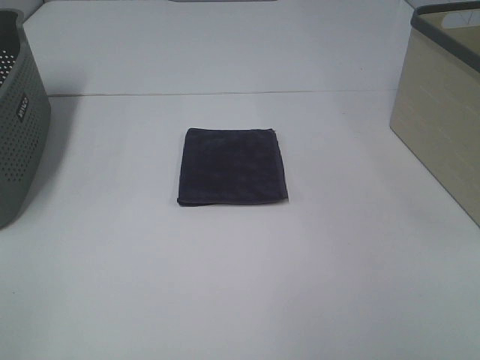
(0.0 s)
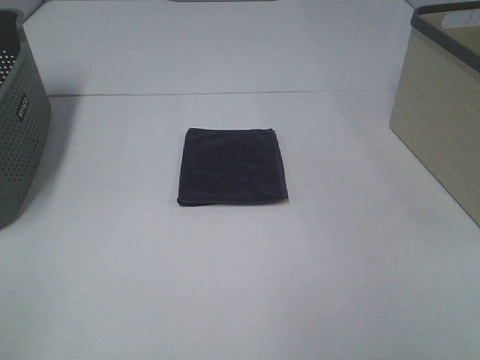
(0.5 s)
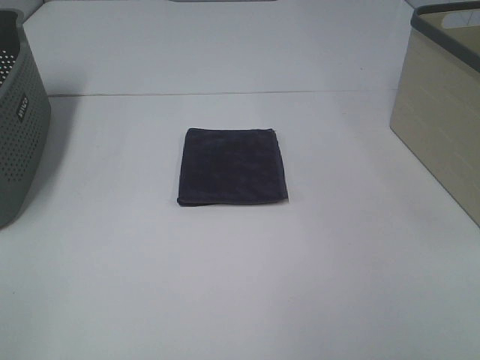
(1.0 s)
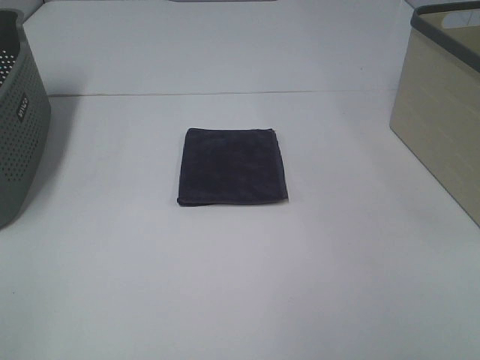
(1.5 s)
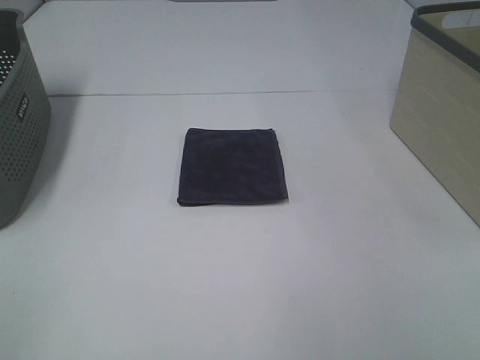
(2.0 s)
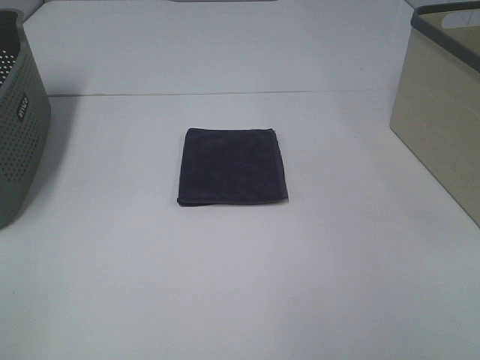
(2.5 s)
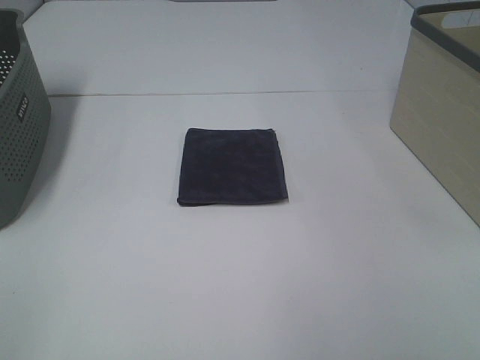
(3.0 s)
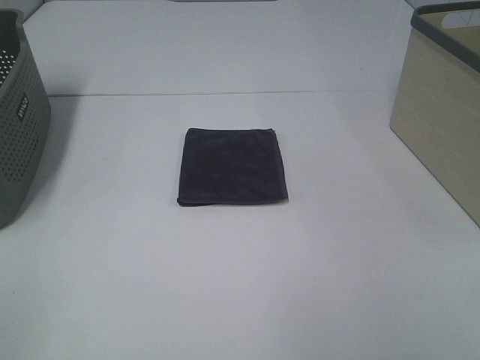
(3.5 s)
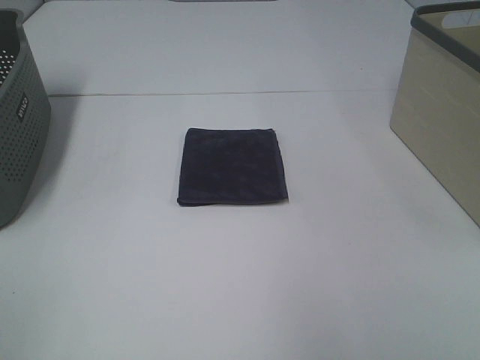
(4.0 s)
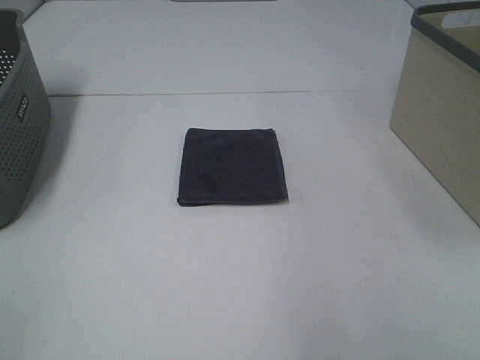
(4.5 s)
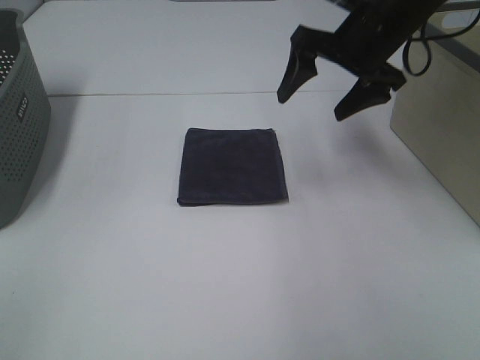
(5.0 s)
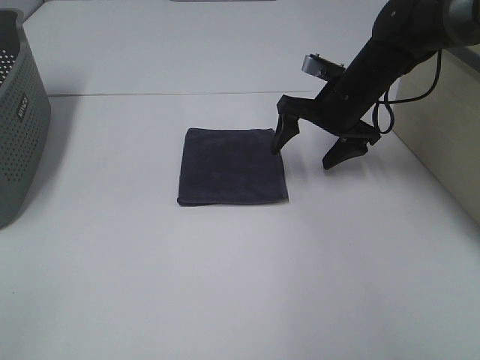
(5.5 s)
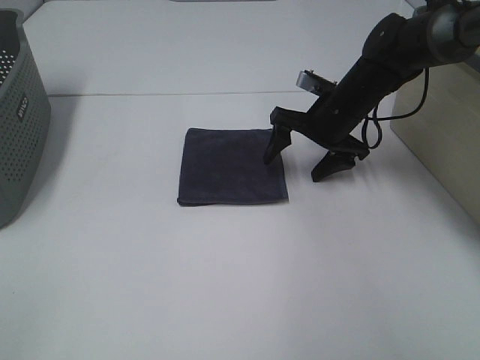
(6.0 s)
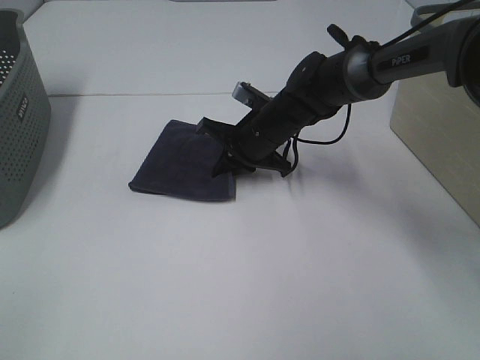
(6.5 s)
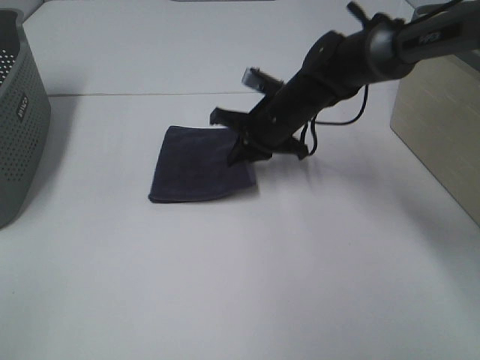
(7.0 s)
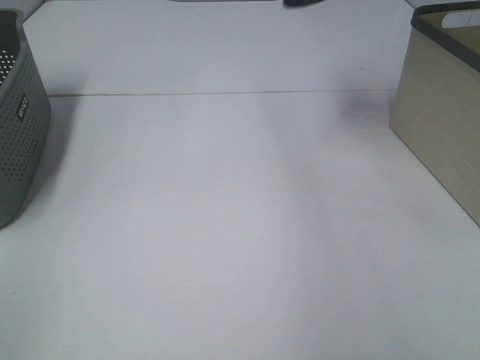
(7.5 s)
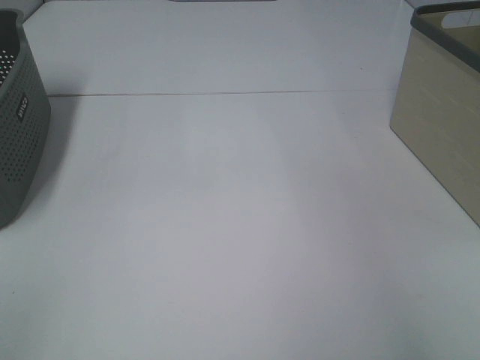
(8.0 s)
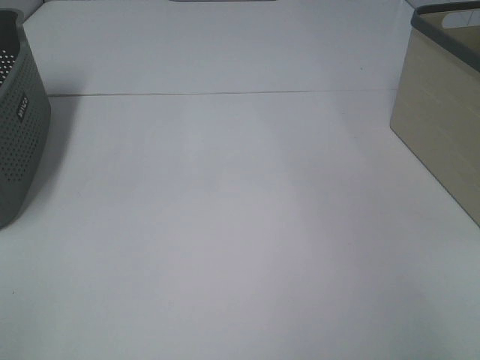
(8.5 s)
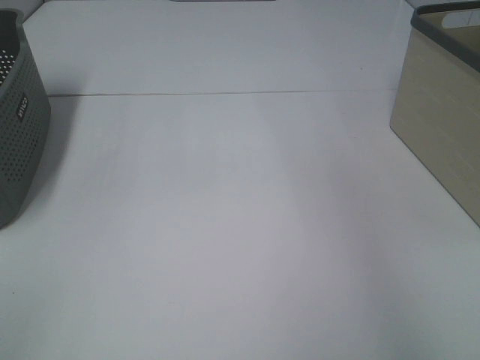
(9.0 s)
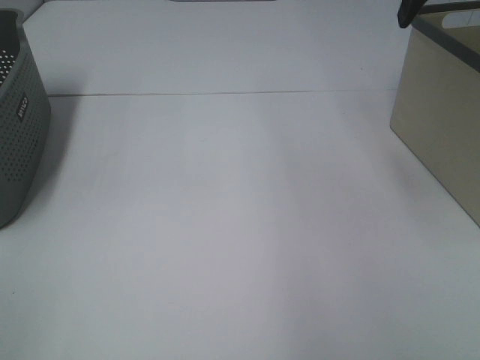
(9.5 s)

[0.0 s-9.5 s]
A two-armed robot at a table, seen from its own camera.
Step, 0.0 to 6.5 s: Right hand: grab the folded grey towel.
Step, 7.0 to 8.5 s: Right hand: place the grey towel in right basket.
0.0 to 2.0 s: Both grippers stay about where they are.
4.0 to 5.5 s: The right gripper goes roughly 50 cm downward and forward.
5.5 to 7.5 s: The right gripper is displaced upward by some 25 cm, and closes its fingers.
7.5 to 9.5 s: The right gripper moves backward, approximately 5 cm, goes to the right and returns, about 20 cm each way, and opens its fingers.

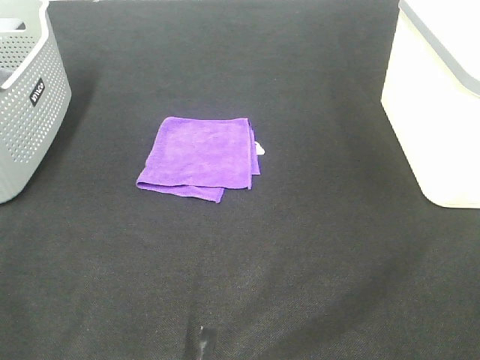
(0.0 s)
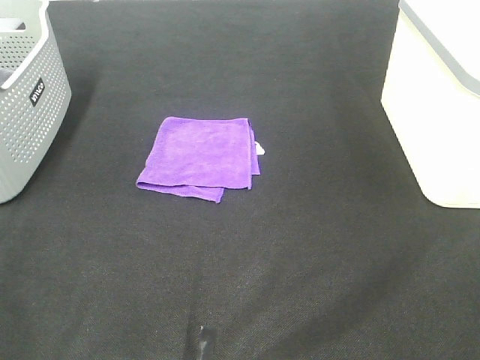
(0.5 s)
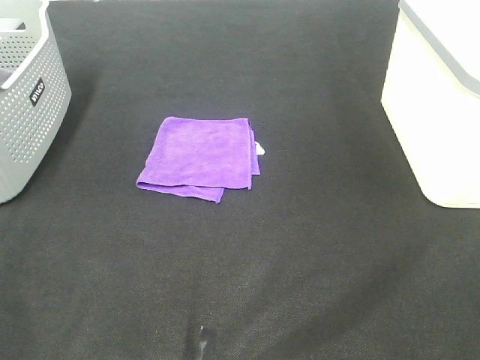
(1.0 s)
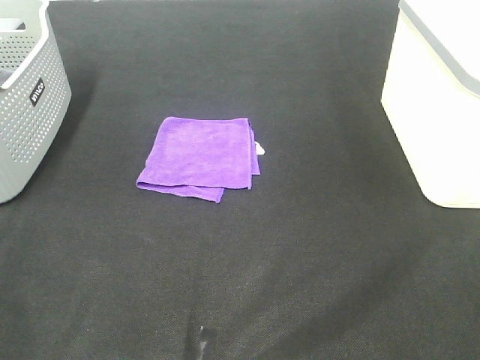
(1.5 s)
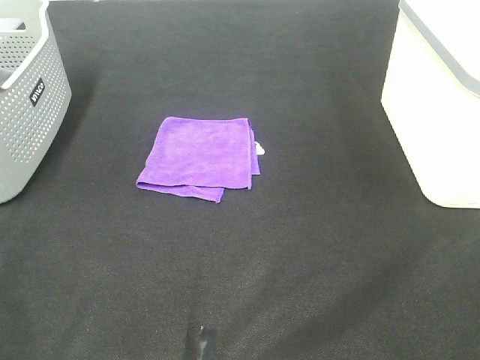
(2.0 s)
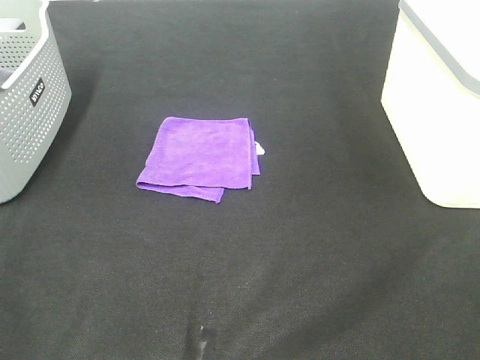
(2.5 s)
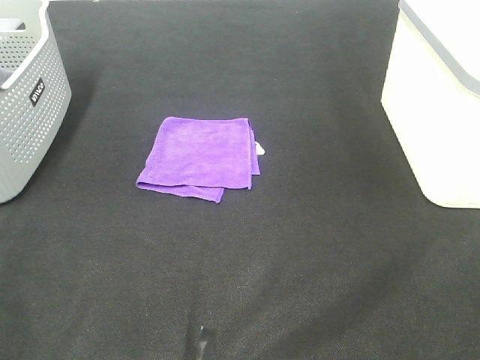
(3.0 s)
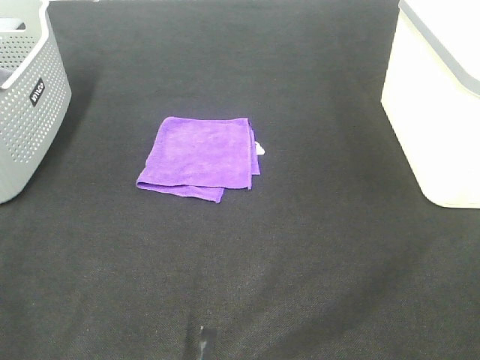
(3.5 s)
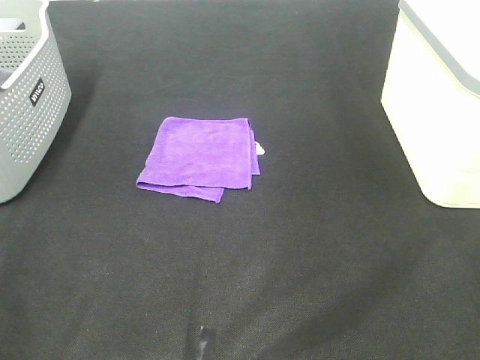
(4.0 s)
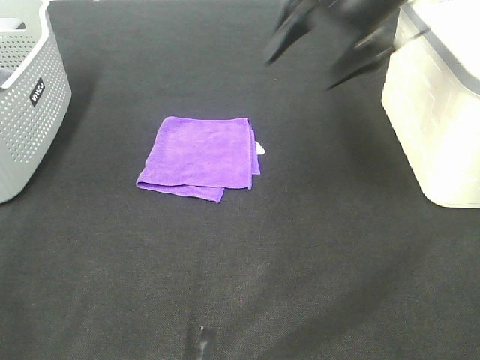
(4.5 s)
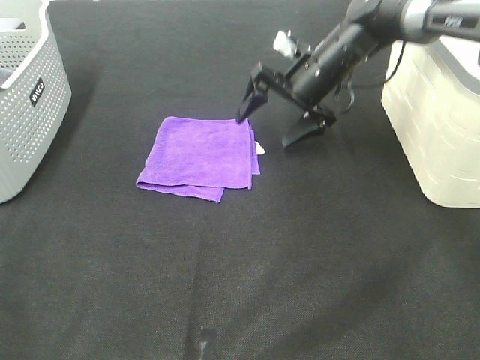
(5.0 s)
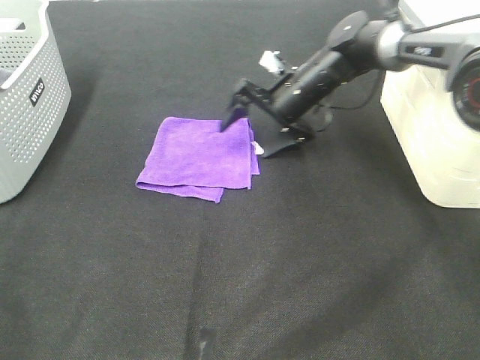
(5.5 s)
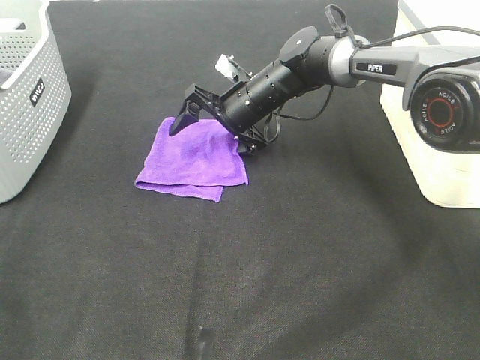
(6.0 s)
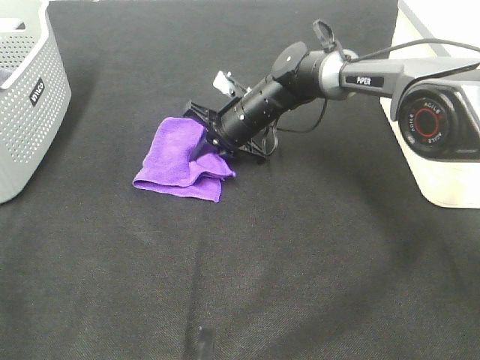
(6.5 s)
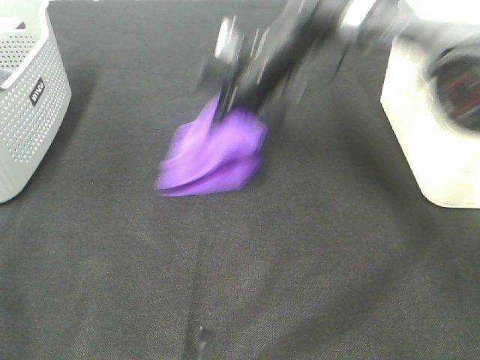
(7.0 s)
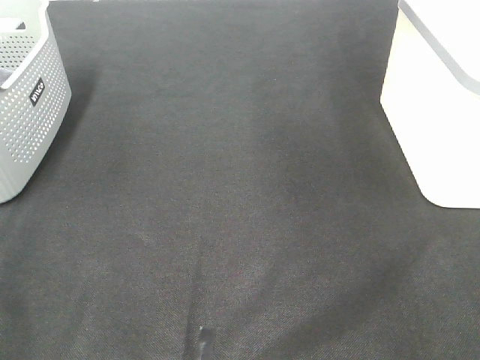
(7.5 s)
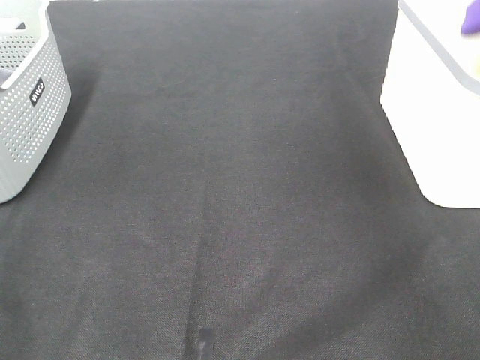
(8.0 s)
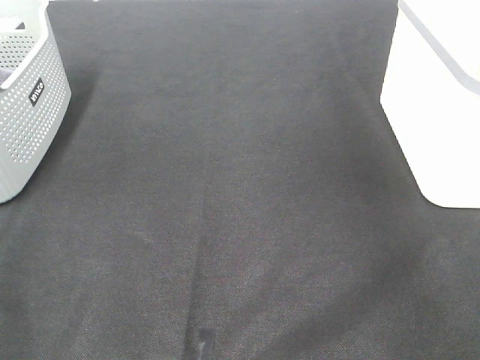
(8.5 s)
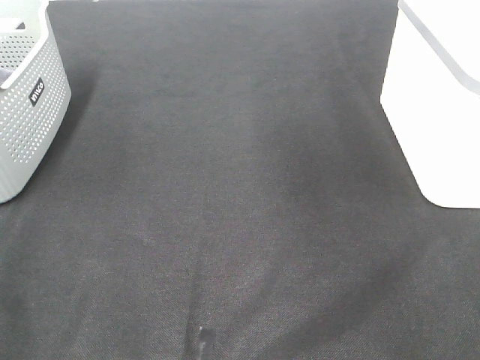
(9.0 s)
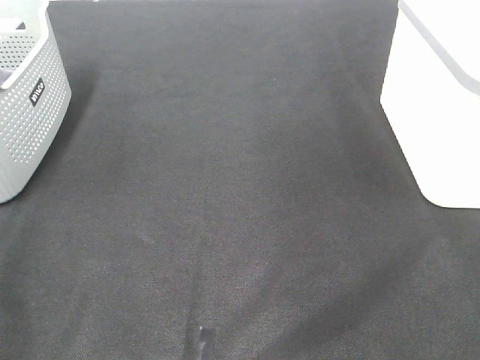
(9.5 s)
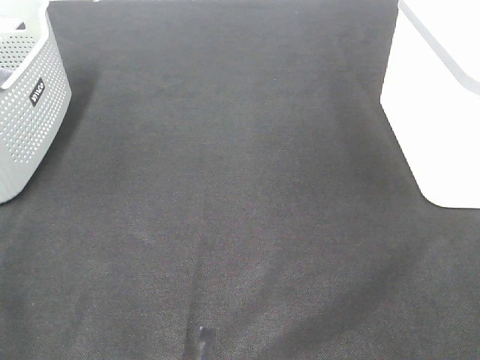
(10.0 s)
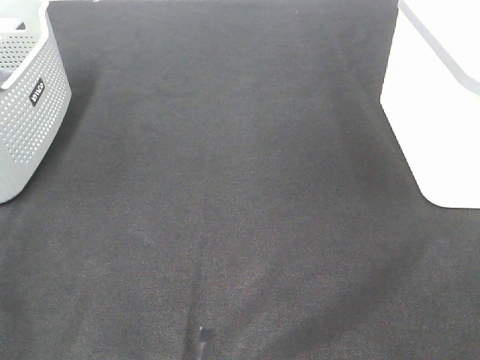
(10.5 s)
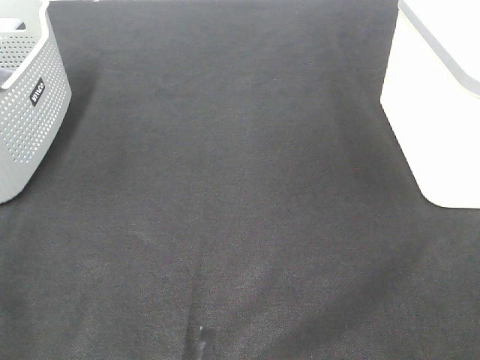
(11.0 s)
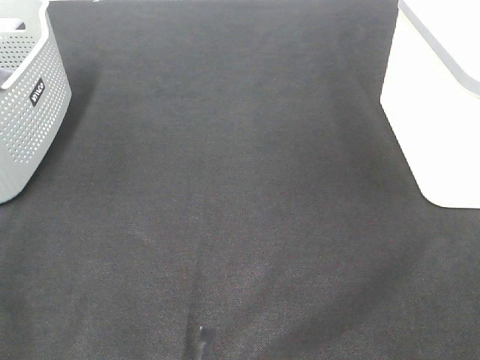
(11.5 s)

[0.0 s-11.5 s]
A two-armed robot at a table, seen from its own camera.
Step, 0.0 to 6.5 s: Right hand: grab the folded purple towel.
Step, 7.0 to 8.0 s: Right hand: place the purple towel in right basket.
4.0 to 6.0 s: The right gripper moves forward, downward and to the left, some 50 cm.
6.0 to 7.5 s: The right gripper is displaced upward and to the right by some 40 cm, and closes its fingers.

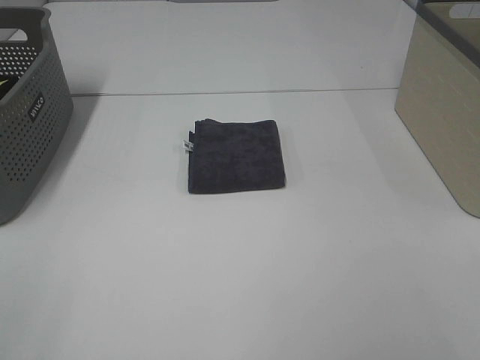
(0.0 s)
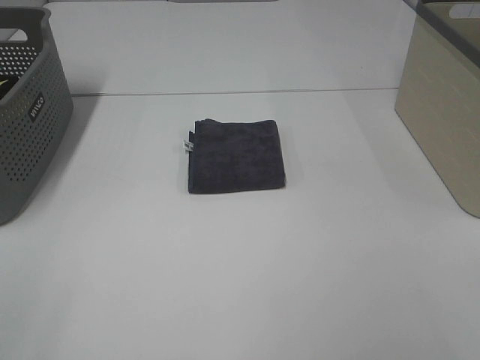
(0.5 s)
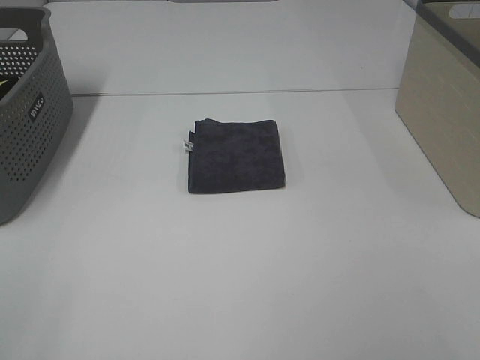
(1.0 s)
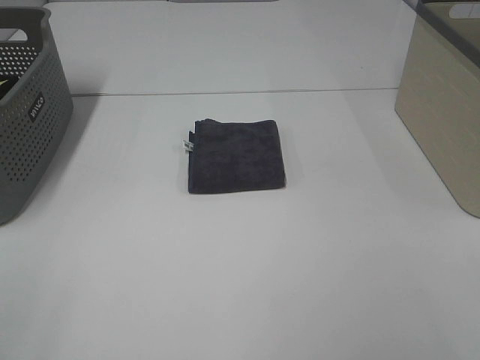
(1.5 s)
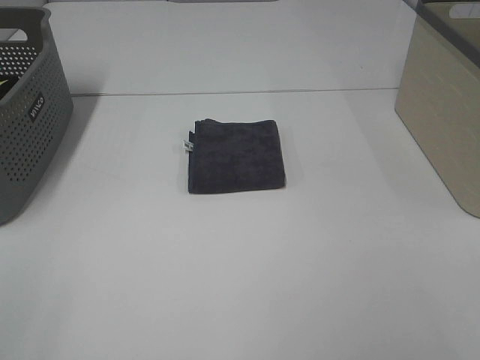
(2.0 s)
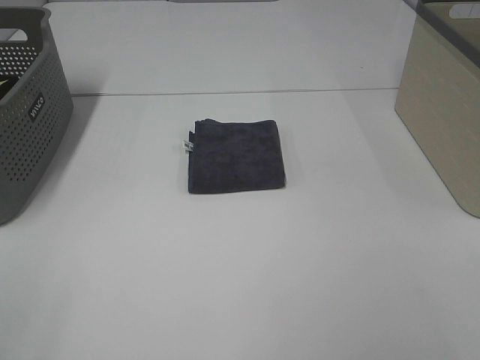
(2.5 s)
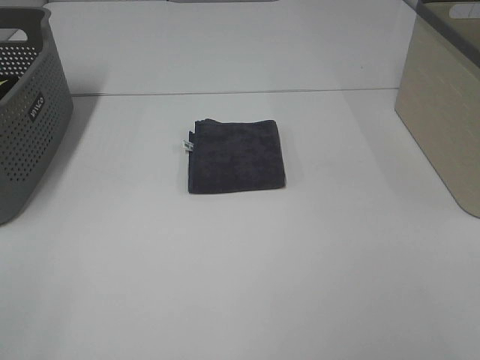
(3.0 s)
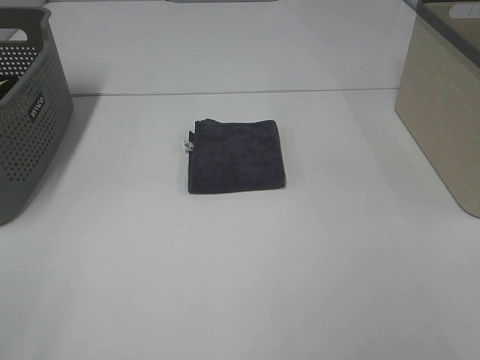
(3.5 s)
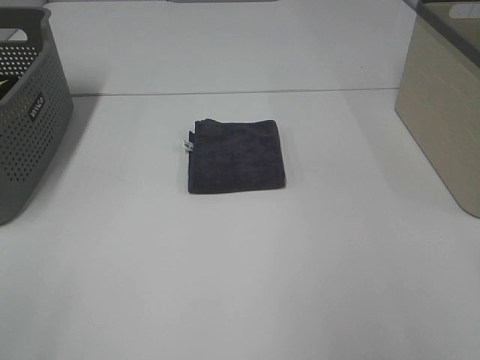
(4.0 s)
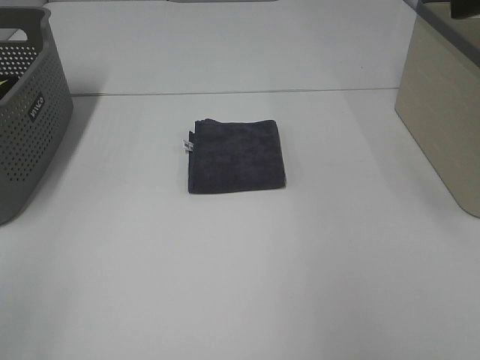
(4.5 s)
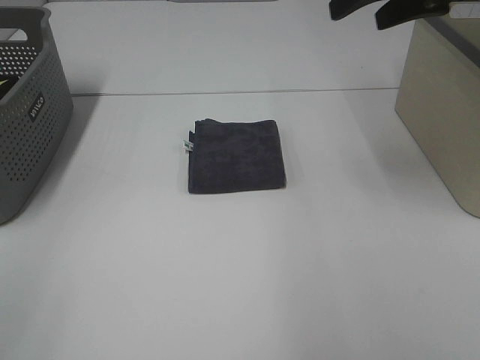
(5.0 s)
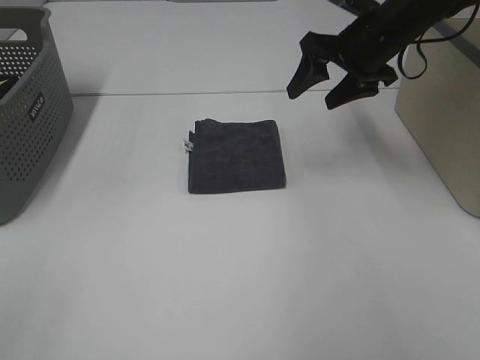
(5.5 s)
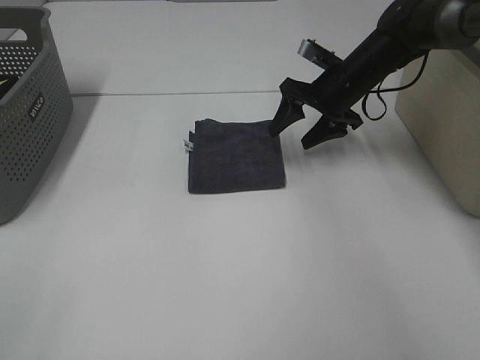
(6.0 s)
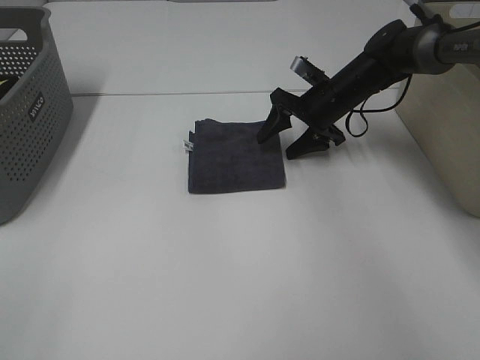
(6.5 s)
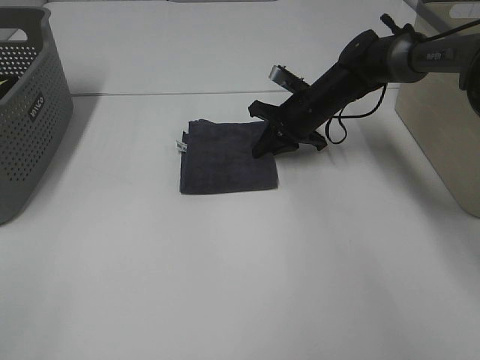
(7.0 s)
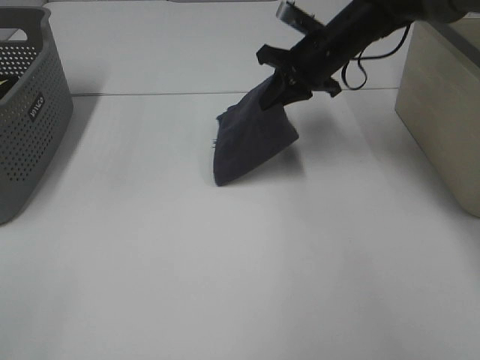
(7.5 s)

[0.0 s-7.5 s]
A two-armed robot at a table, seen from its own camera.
Step, 0.0 to 7.0 s: Right hand: grab the folded grey towel.
0.0 to 2.0 s: The two grippers keep their place.
4.0 to 5.5 s: The right gripper is displaced forward by some 35 cm.
5.5 to 7.5 s: The right gripper reaches approximately 15 cm downward, then returns, and closes up.
